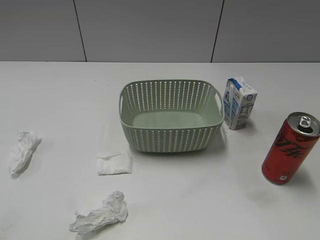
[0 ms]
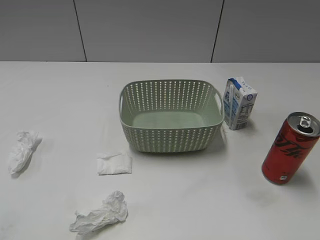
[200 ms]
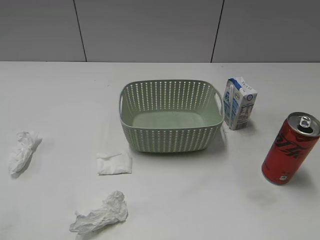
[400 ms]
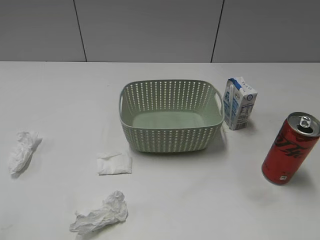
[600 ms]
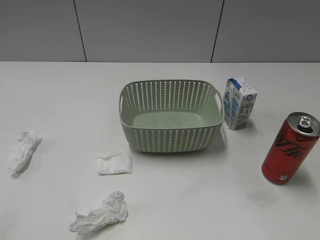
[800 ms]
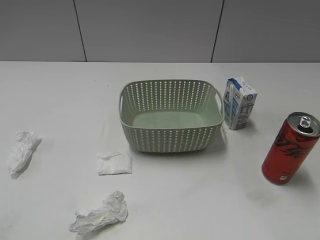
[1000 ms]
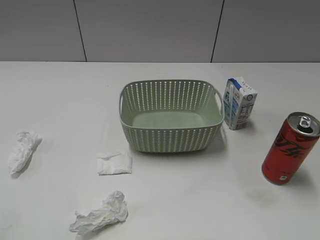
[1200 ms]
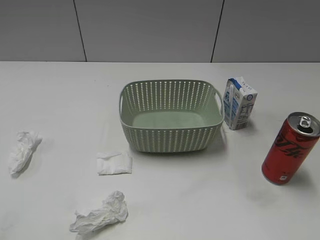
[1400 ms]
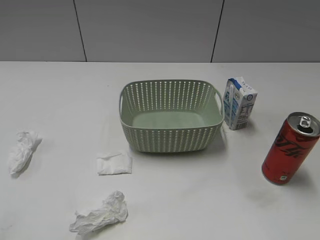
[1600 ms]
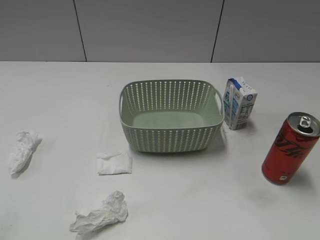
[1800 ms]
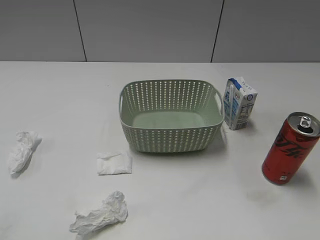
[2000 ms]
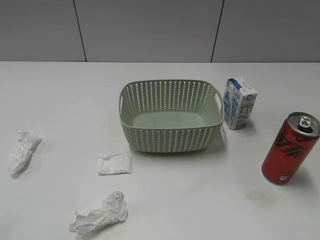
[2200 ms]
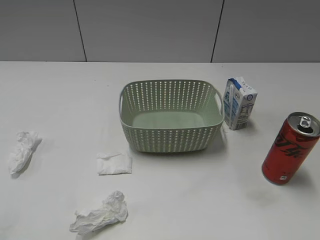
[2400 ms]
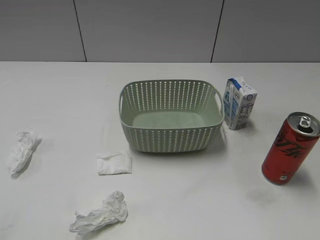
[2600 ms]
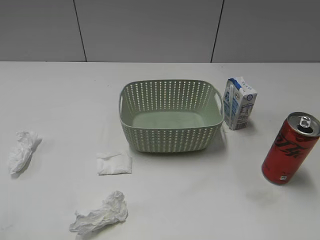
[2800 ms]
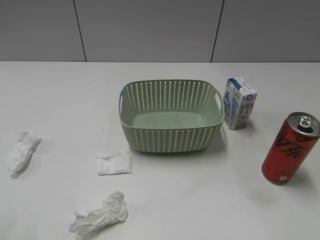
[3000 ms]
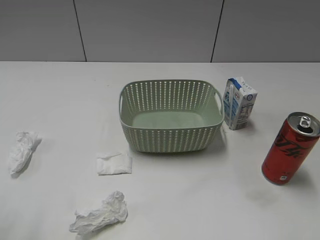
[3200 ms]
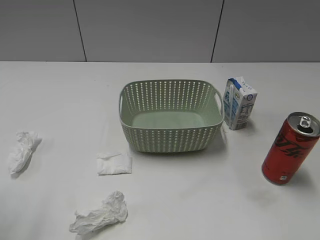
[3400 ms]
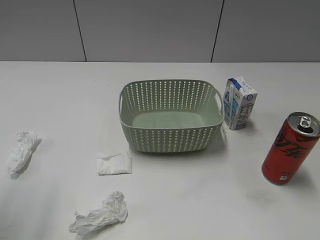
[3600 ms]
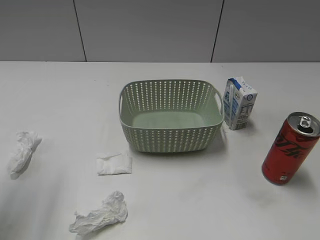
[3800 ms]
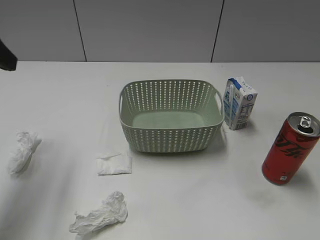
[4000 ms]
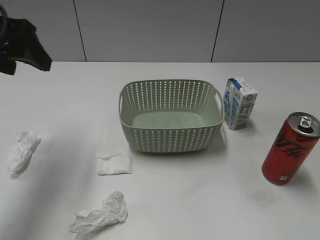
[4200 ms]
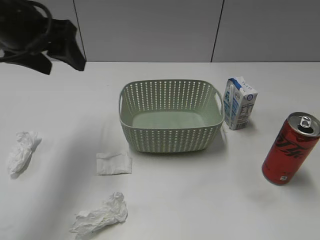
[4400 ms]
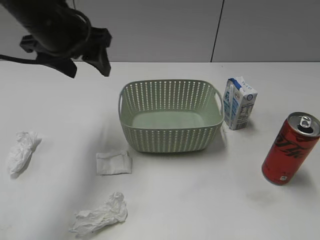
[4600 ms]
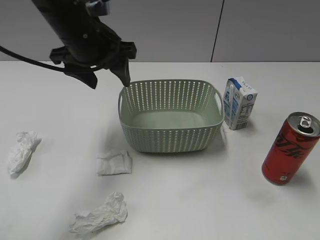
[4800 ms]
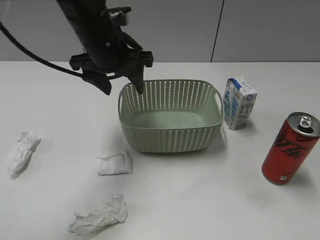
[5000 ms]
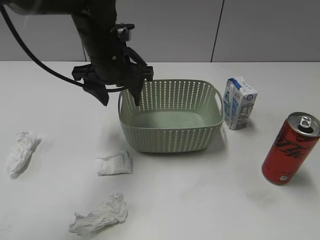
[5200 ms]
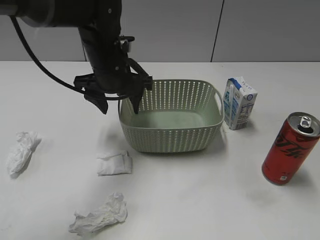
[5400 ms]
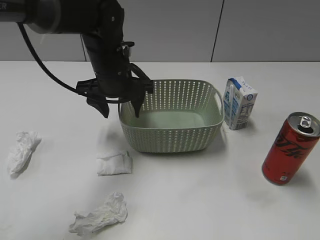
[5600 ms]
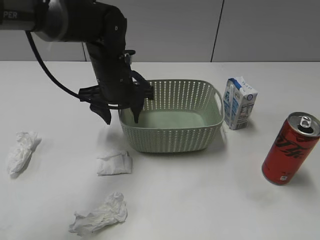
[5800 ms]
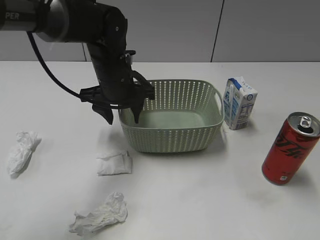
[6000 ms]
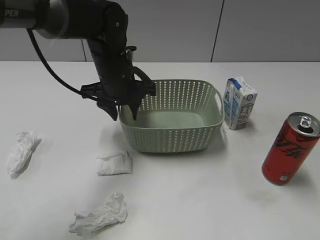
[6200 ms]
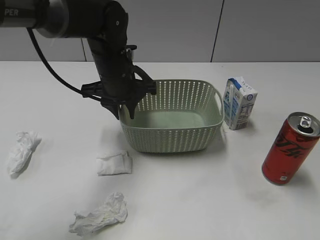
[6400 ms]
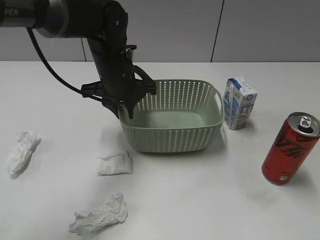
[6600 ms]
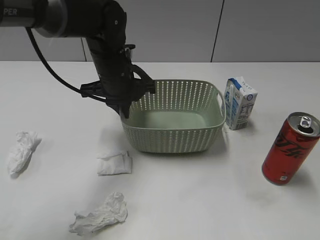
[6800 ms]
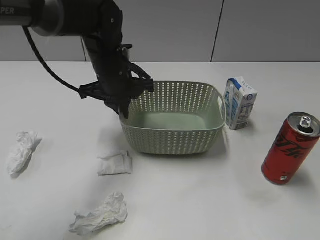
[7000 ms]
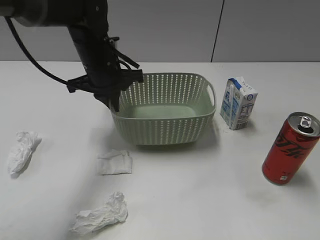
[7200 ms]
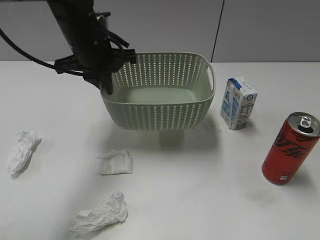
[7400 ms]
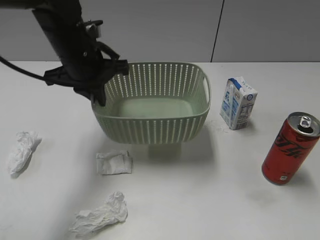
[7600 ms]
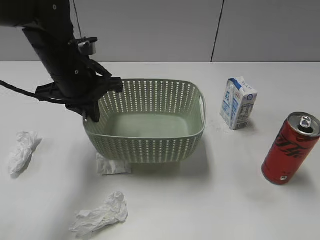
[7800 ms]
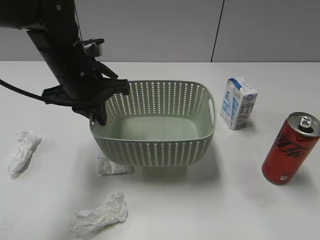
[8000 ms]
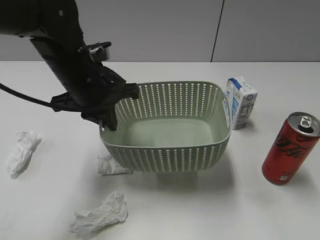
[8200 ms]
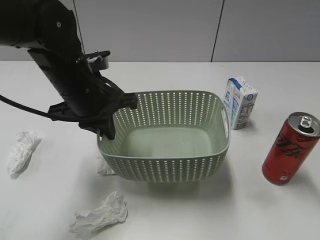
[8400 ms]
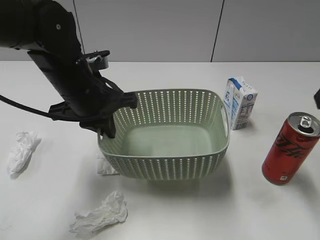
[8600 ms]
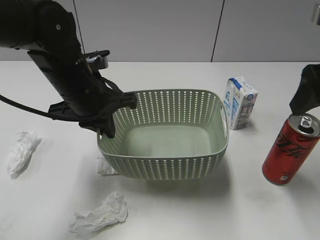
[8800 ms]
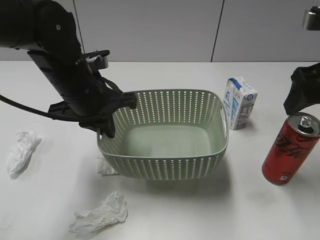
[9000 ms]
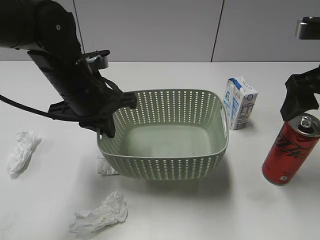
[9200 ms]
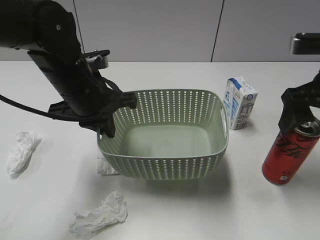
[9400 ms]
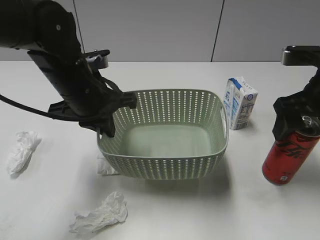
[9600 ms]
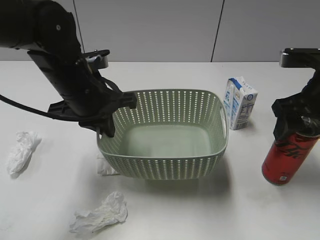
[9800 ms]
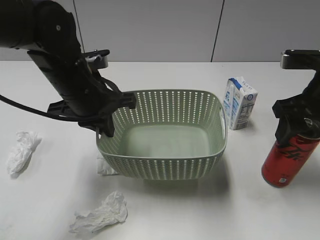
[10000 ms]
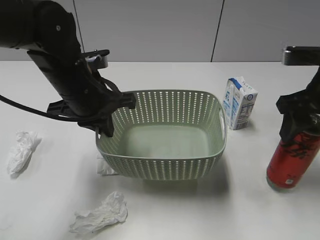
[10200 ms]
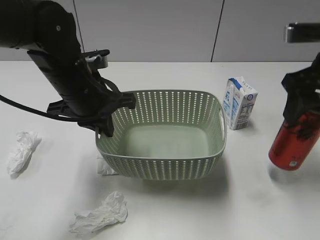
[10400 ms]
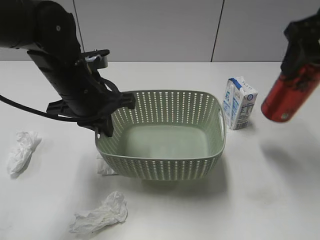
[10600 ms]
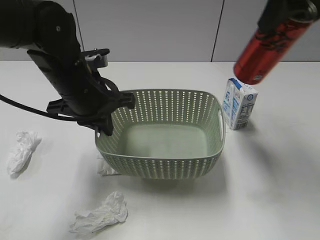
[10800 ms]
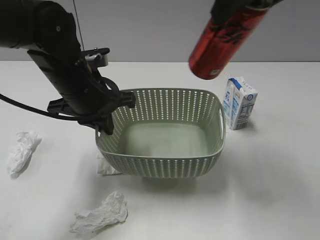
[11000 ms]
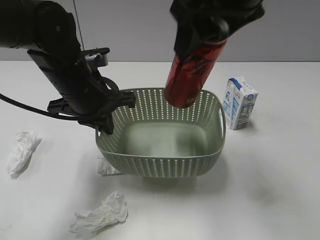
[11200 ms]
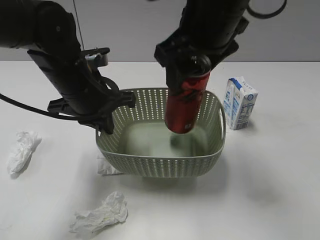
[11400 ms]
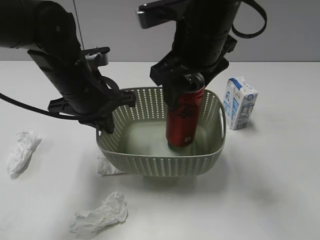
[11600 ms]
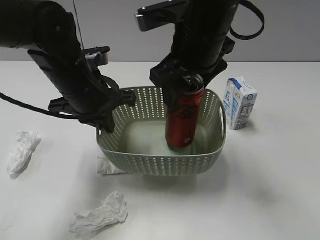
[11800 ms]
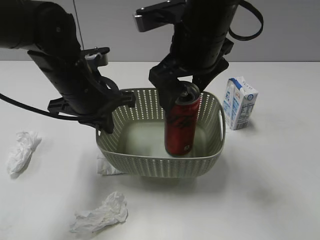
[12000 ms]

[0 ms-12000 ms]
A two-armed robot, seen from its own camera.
Step, 4000 ms to 7000 ms: Grasp the basket with left gripper.
Step, 7200 ms to 8400 ms: Lift the basket with left gripper.
Step, 8600 ms to 10000 ms: Grasp the cola can with right gripper.
3000 ms to 4400 ms: The left gripper shifts some 25 cm forward and to the right.
4400 ms to 6000 ms: The left gripper moves downward, to the right and forward, about 20 cm.
6000 ms to 7600 ms: The left gripper travels upward and to the left by roughly 10 cm, and closes its fingers.
7600 ms to 9000 ms: The right gripper shifts some 25 cm forward, and opens. Meanwhile the left gripper goes about 5 cm backward.
9000 ms to 10400 ms: The right gripper closes its fingers.
10400 ms to 12000 ms: The right gripper is displaced to the left by about 20 cm, and opens up.

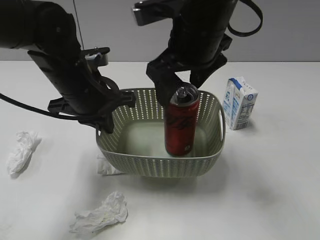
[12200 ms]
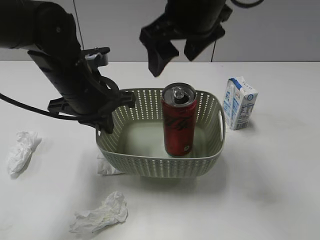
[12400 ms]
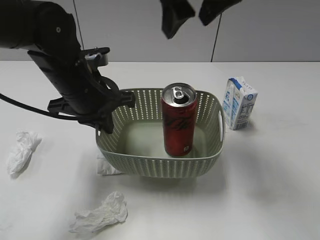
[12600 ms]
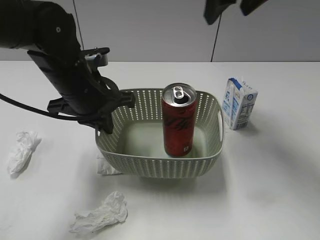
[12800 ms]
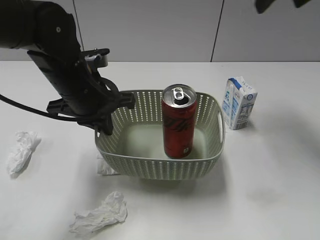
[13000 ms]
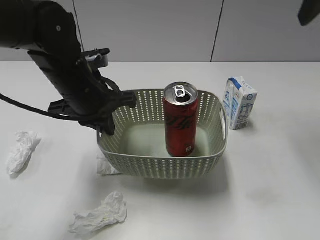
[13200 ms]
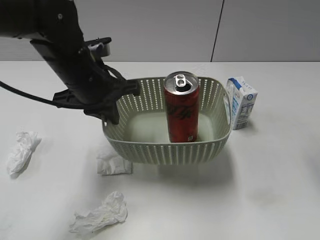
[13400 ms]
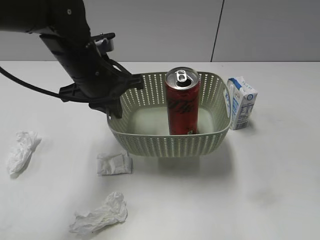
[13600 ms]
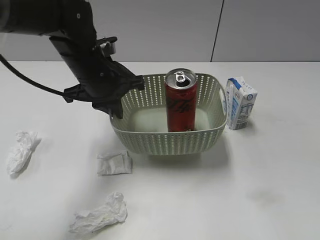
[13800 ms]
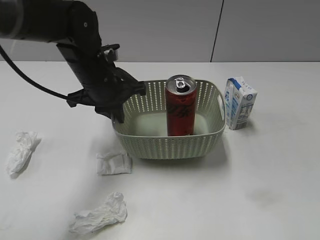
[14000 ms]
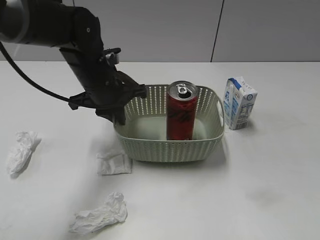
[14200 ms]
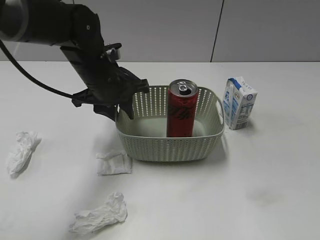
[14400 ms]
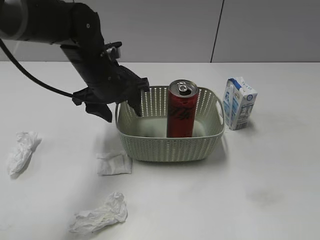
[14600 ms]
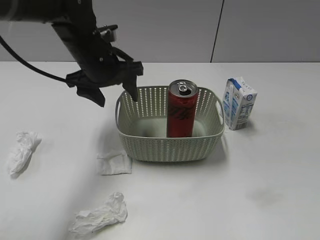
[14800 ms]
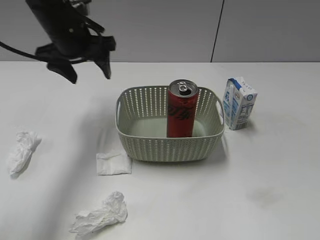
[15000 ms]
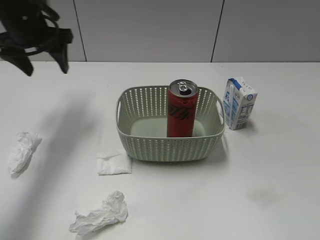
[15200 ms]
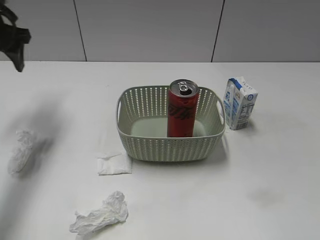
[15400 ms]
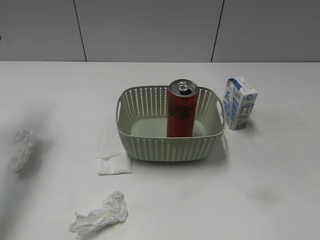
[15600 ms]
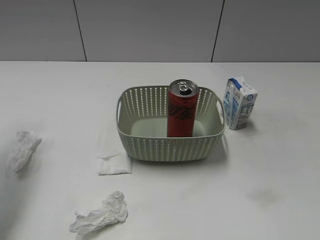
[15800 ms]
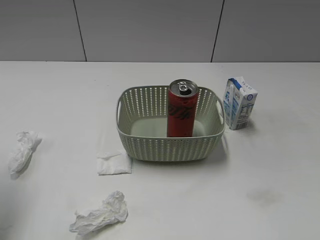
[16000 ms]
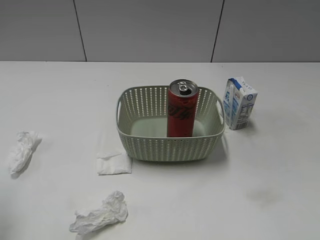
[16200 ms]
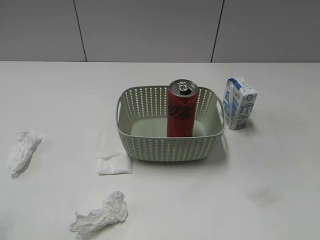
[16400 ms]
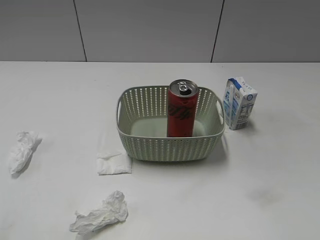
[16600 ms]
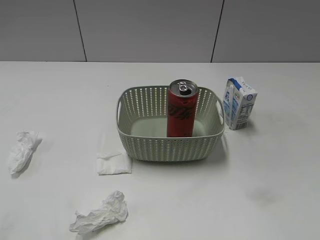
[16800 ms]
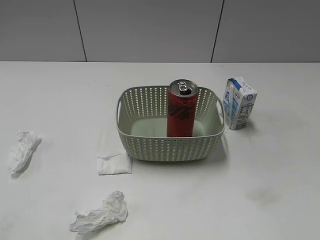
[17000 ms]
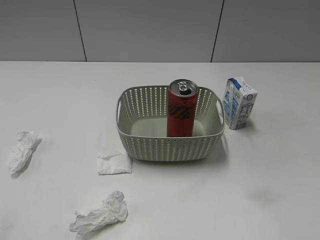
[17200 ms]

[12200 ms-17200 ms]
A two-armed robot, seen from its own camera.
12200 ms to 13800 ms: The right gripper moves to the right and backward, approximately 30 cm.
13800 ms to 15600 ms: The left gripper heads to the left and upward, covering about 25 cm, and opens up; the right gripper travels backward and downward by some 15 cm.
15600 ms to 17200 ms: The left gripper moves backward, approximately 35 cm.

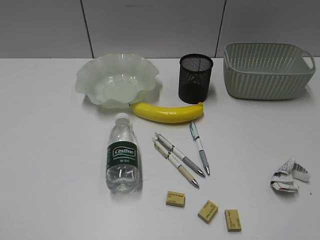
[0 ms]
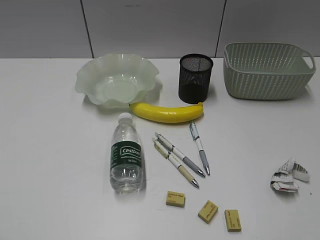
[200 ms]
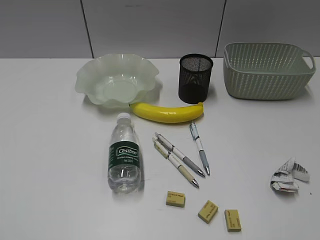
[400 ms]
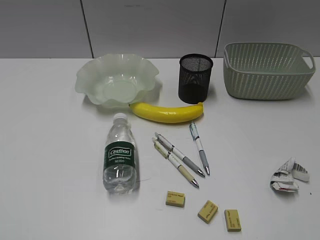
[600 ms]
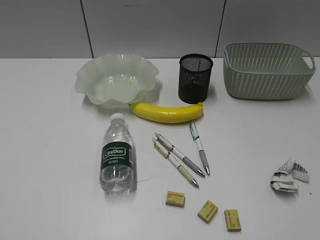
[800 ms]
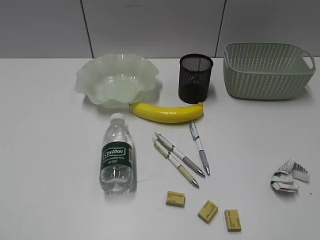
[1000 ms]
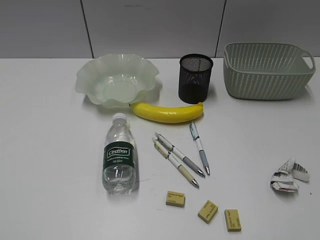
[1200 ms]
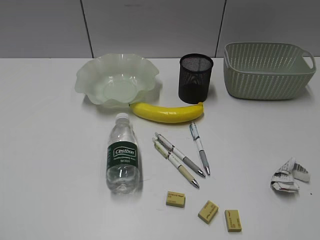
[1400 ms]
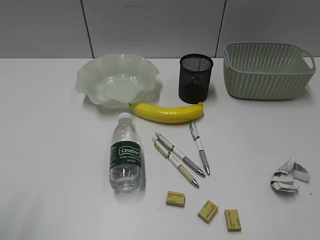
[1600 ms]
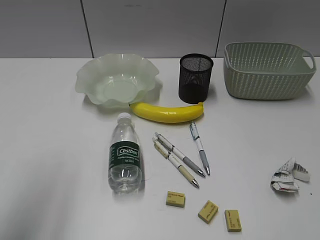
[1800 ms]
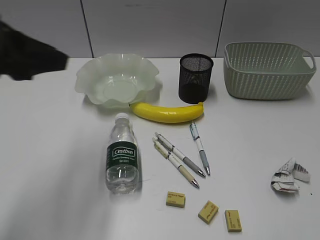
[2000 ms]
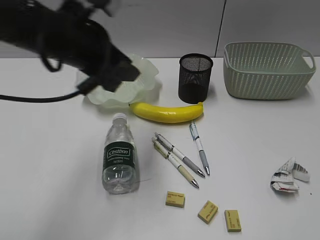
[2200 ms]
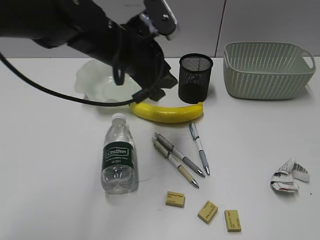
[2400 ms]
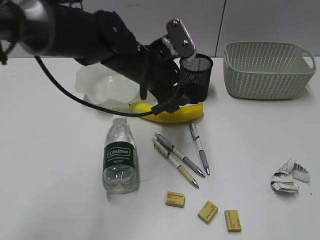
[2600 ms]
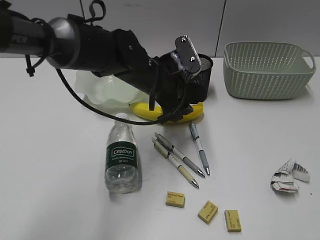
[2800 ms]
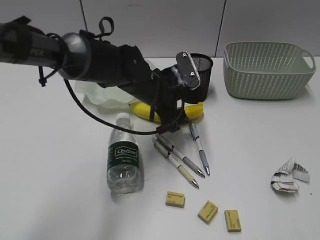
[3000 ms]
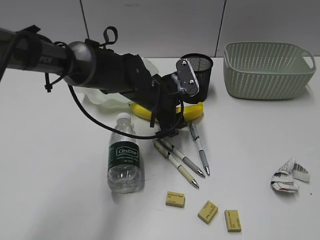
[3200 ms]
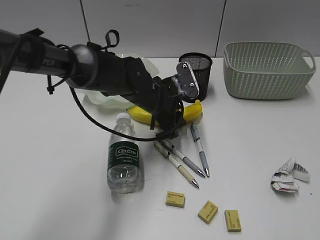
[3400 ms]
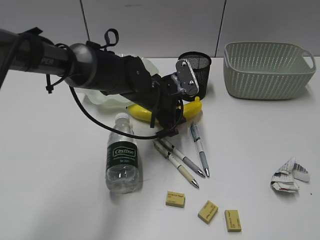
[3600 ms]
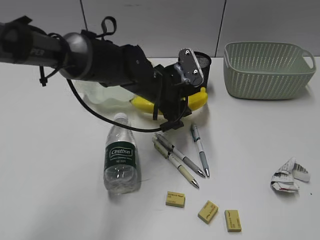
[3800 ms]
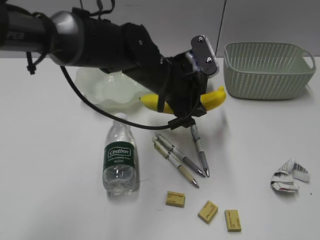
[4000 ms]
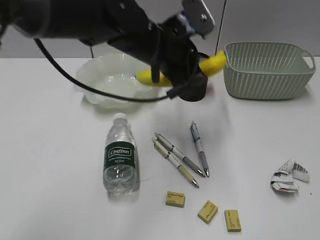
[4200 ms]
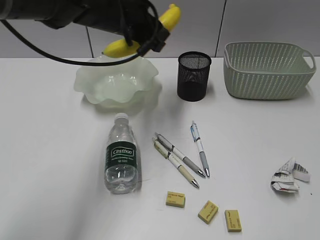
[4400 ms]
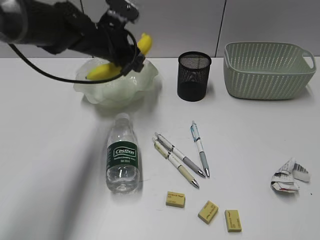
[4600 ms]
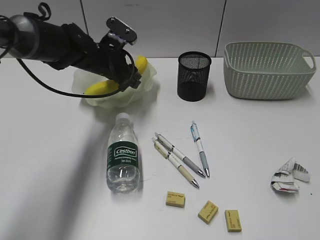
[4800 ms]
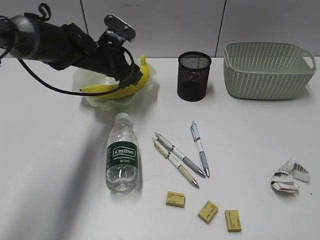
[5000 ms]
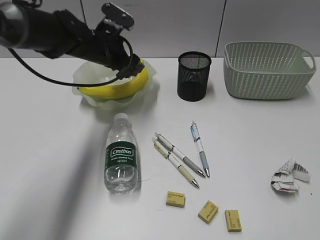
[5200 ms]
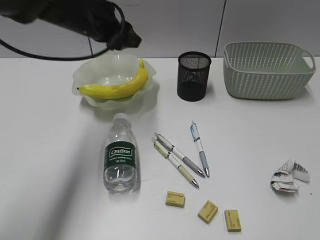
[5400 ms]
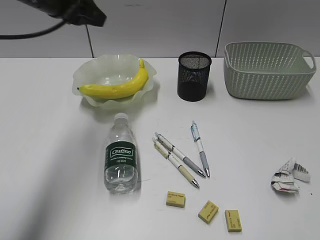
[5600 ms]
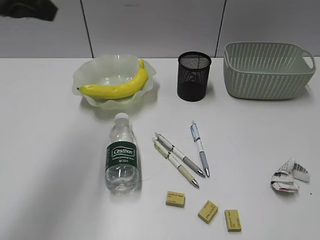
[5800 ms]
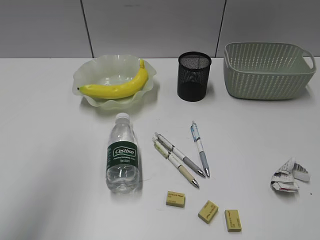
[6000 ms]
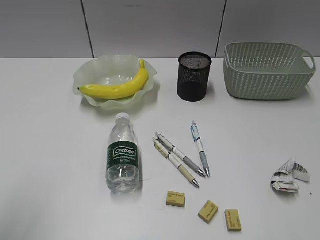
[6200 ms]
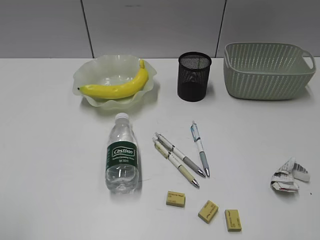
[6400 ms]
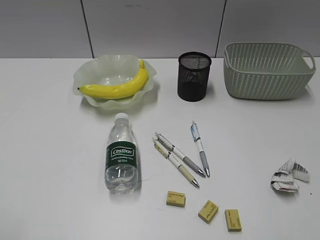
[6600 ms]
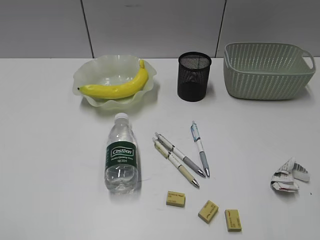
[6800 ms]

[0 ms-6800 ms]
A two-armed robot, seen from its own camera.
Step, 1400 ms to 3400 ms: Grasp the banana with left gripper.
Step, 3600 ms to 5200 ms: Place the banana in the plate with left gripper.
1400 ms to 2800 ms: The left gripper travels forward and to the right by roughly 50 cm, and opens up.
2800 ms to 4000 ms: The left gripper closes.
4000 ms to 5400 ms: The left gripper goes approximately 15 cm to the left, forward and upward.
5400 ms to 6800 ms: The right gripper travels forward by roughly 10 cm. The left gripper is displaced backward and to the left by approximately 50 cm.
